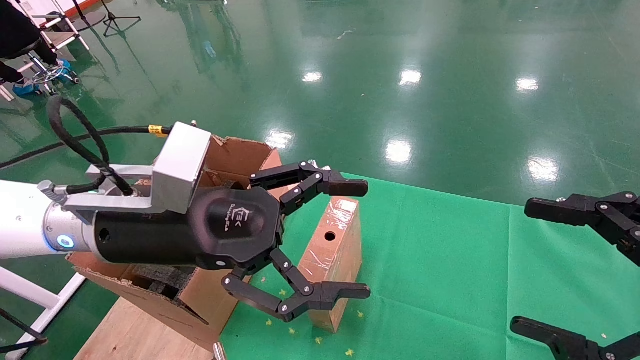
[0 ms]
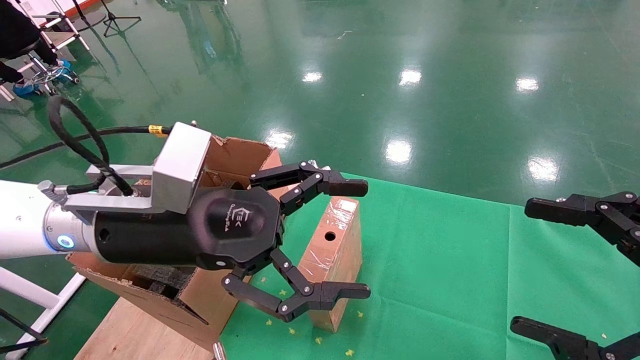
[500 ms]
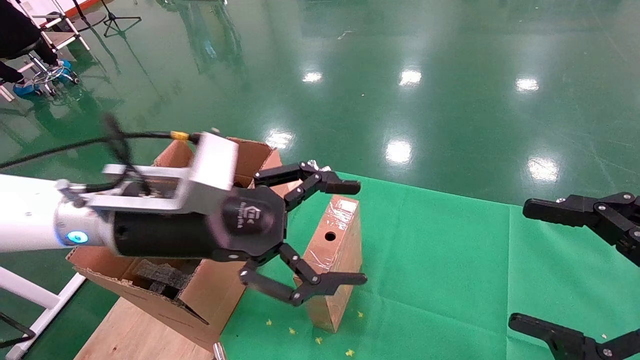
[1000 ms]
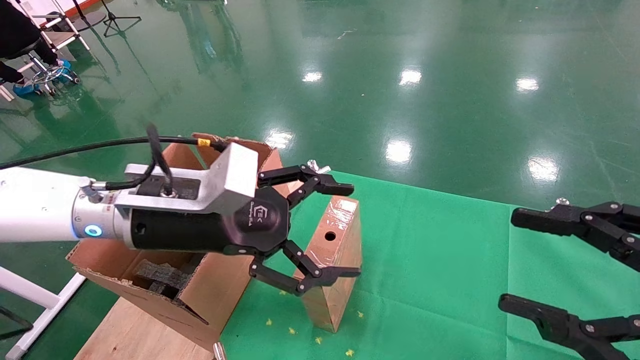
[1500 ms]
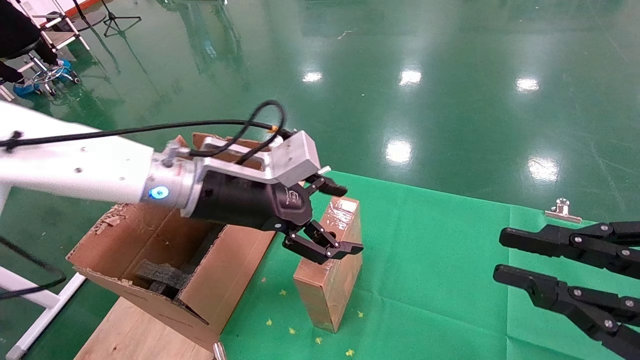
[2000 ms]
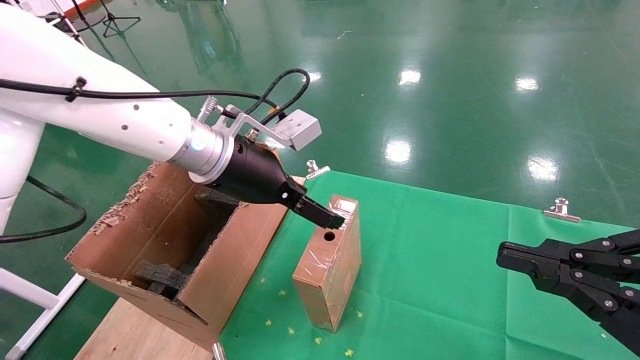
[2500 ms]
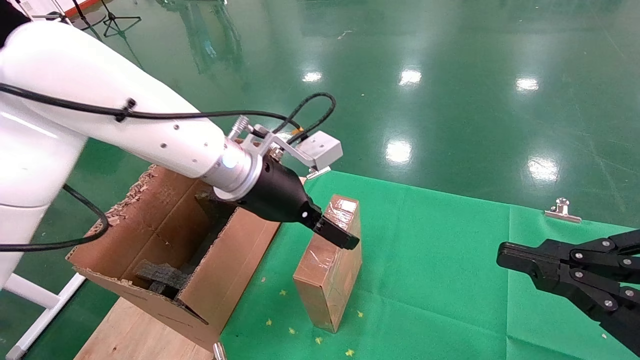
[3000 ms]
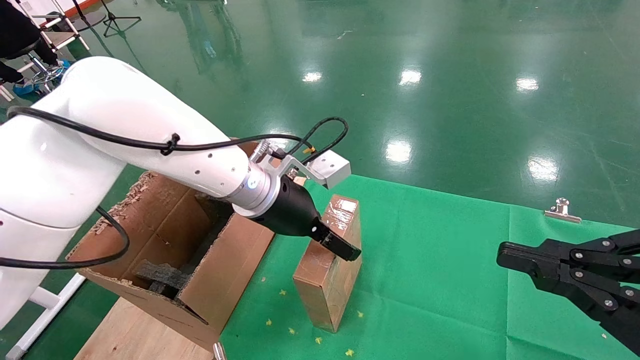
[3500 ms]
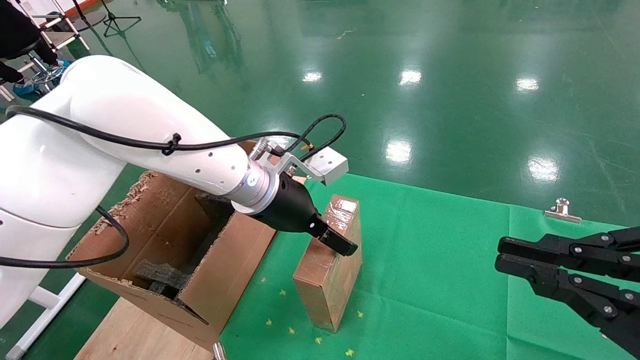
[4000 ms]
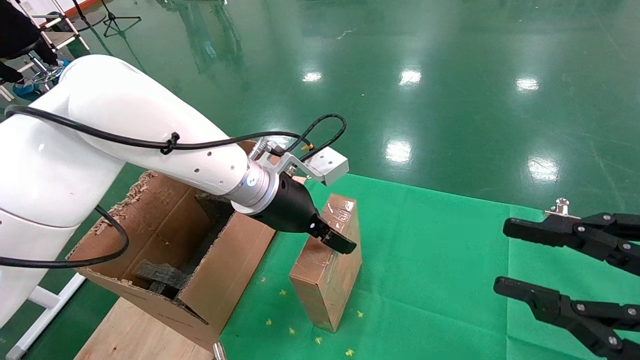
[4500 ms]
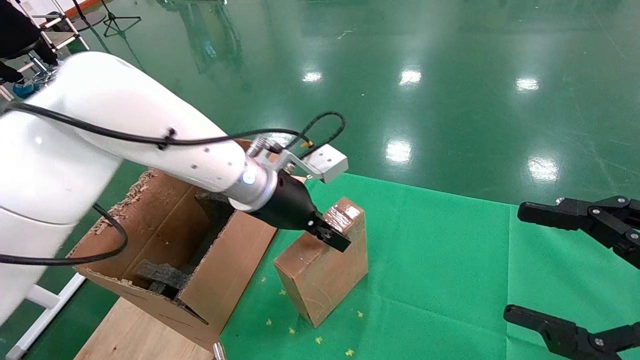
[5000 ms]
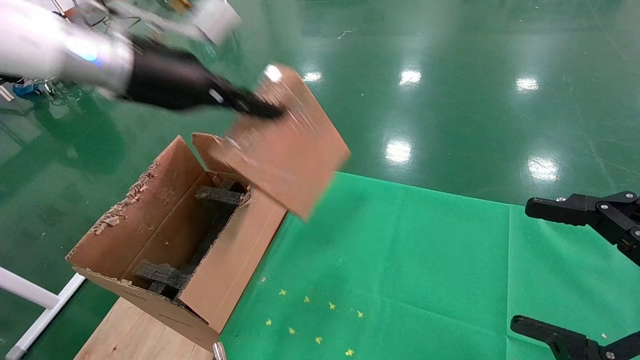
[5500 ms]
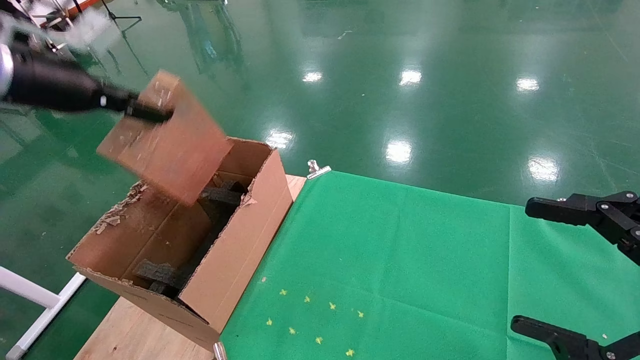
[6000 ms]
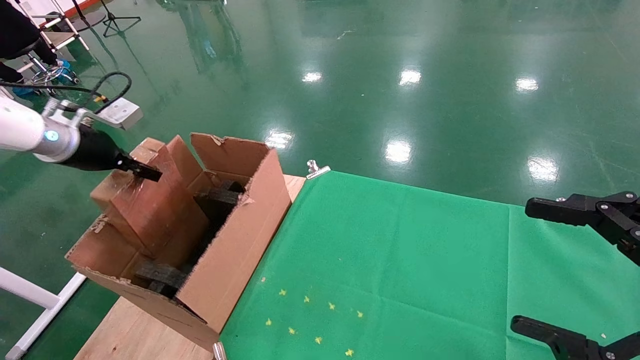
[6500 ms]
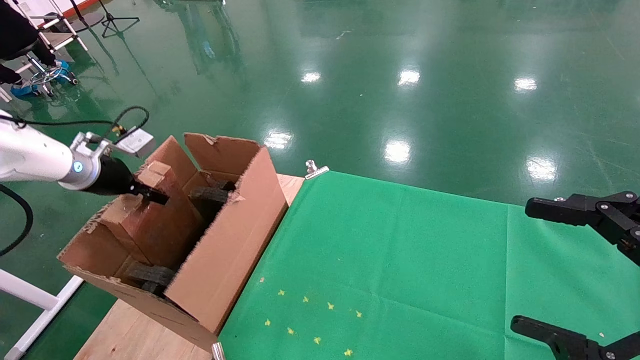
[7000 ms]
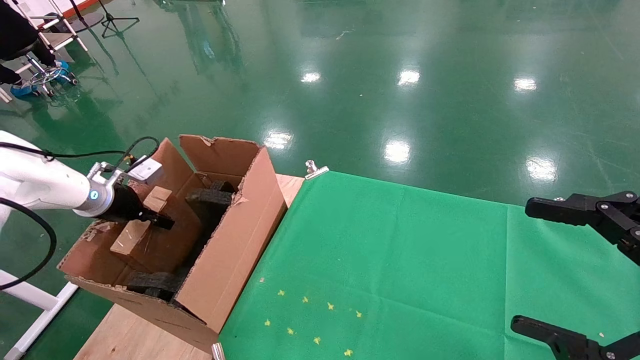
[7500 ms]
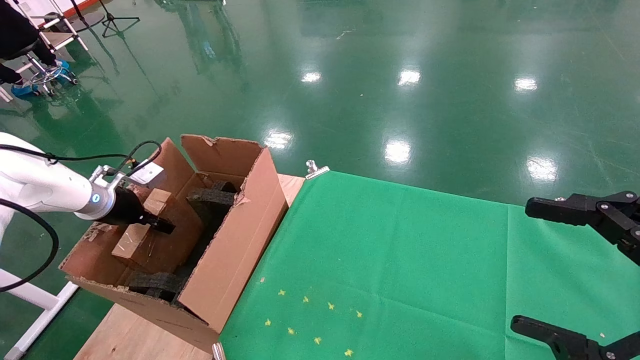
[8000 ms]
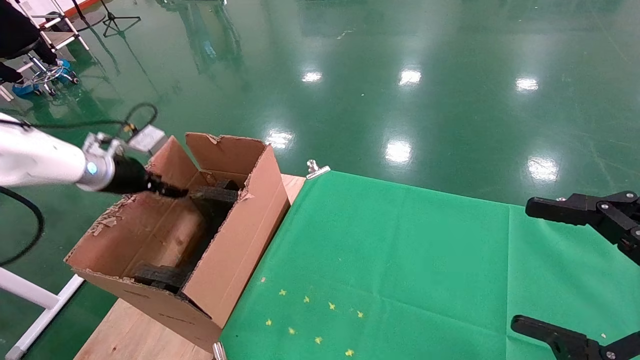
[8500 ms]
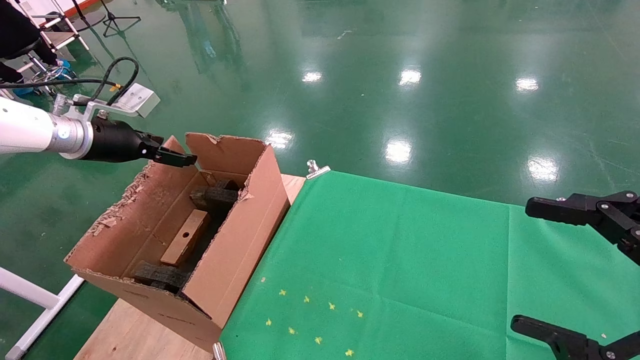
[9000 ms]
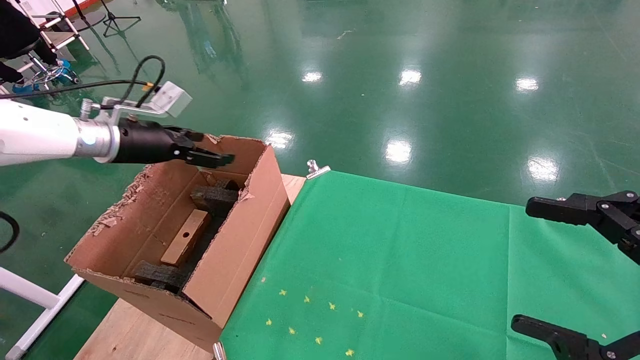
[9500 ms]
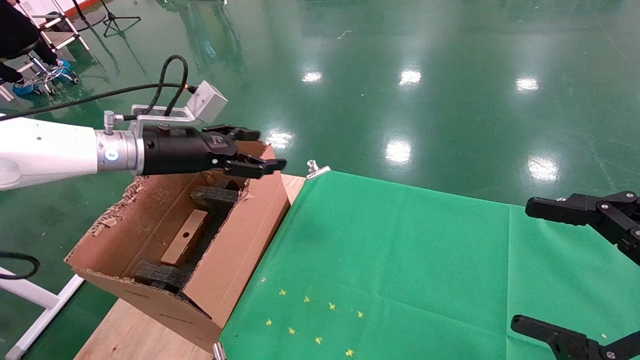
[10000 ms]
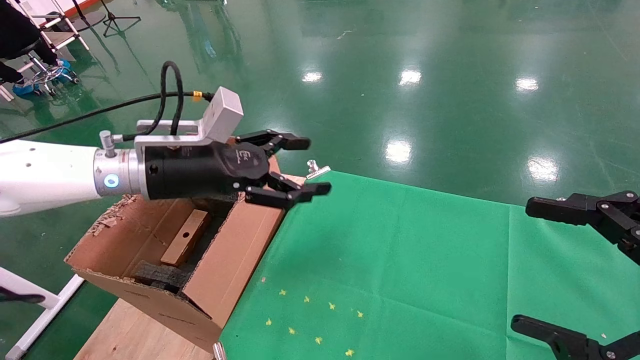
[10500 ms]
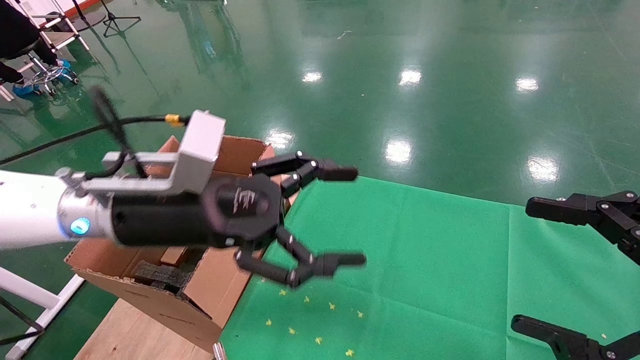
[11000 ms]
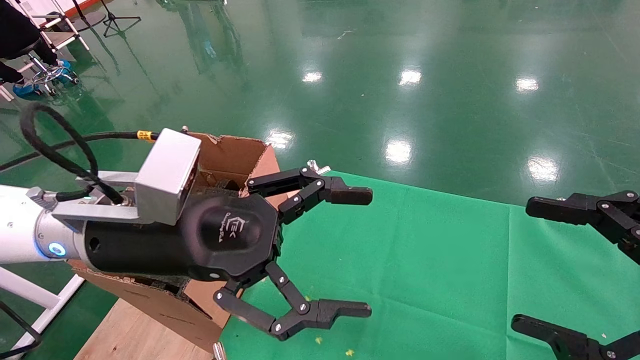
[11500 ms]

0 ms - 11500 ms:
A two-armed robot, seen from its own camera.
Task of the whole recording: using a robotic arm to pick up a cardboard box and palace it the carton.
Step, 1000 ms - 4500 ms: Pick up the mouse and the power cord paper box.
Step, 5000 ms - 8000 ms: Place the mouse and the power cord paper box into the container.
0 ms - 2000 ms: The right gripper closes. Meanwhile the left gripper moves forward, roughly 10 cm.
2000 ms - 4000 ms: The left gripper travels forward and to the right by roughly 5 cm.
4000 ms - 6000 ms: The left gripper moves to the left and upward, about 30 cm, and closes up, while the right gripper opens up.
6000 ms - 7500 ms: The left gripper travels downward by roughly 20 cm.
7500 ms - 9500 ms: The left gripper heads upward and to the right, covering about 15 cm, and opens.
9500 ms - 11500 ms: The left gripper is displaced to the right and backward by about 25 cm.

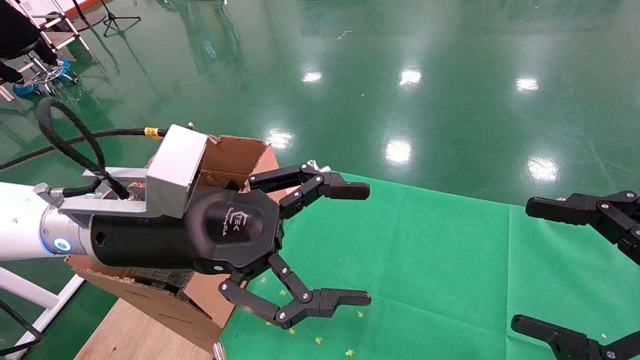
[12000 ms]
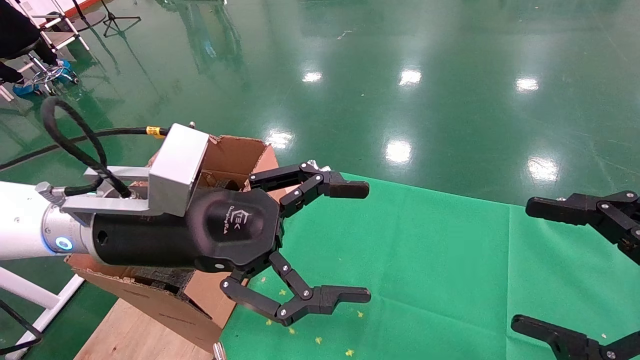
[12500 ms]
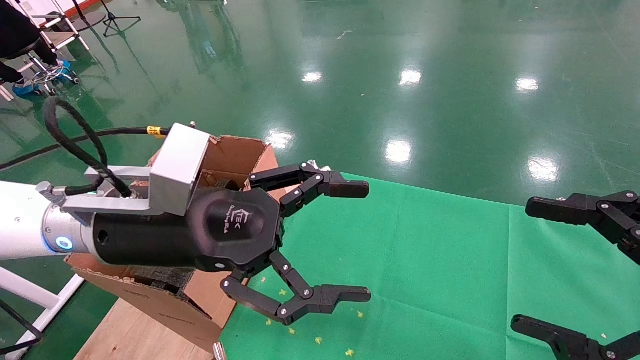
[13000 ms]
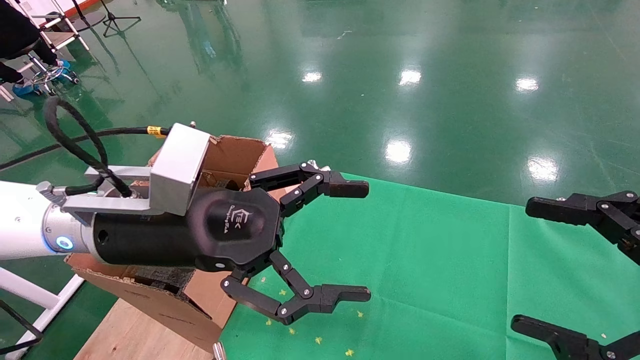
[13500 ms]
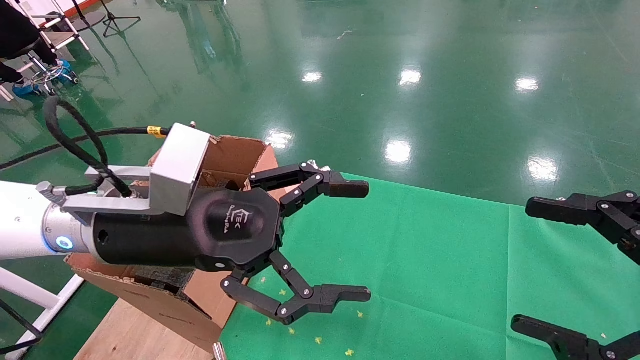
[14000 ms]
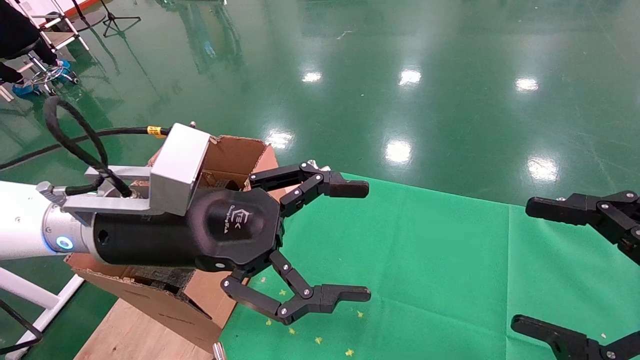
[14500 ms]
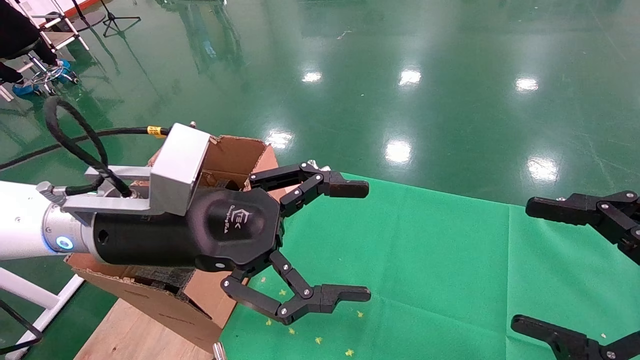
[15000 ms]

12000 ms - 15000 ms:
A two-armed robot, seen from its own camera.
Task of the whole recording: using a robotic arm to pick up a cardboard box and palace it the carton.
12000 ms - 15000 ms: Both grippers stay about where they are.

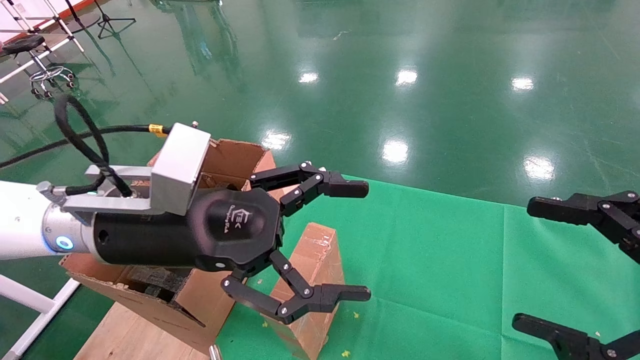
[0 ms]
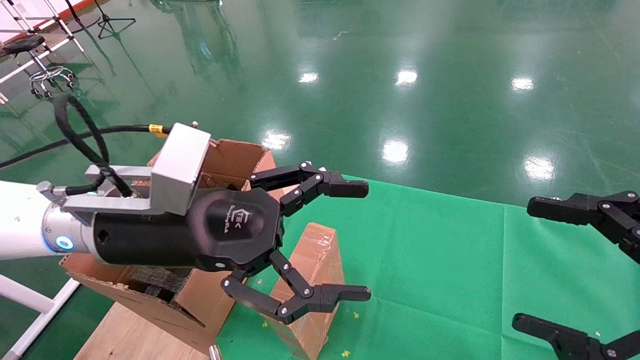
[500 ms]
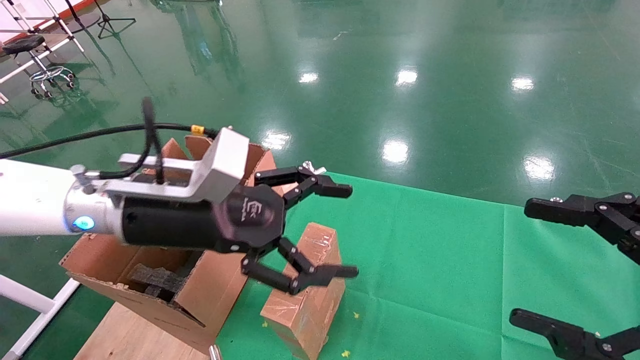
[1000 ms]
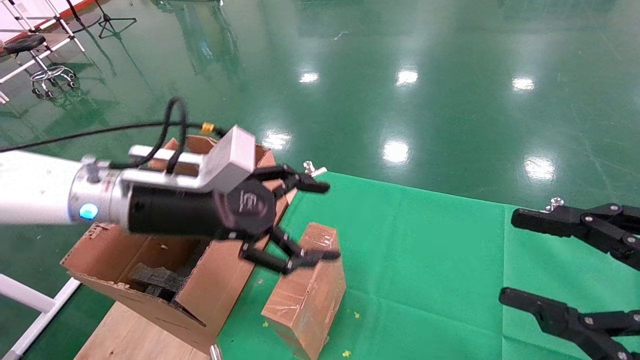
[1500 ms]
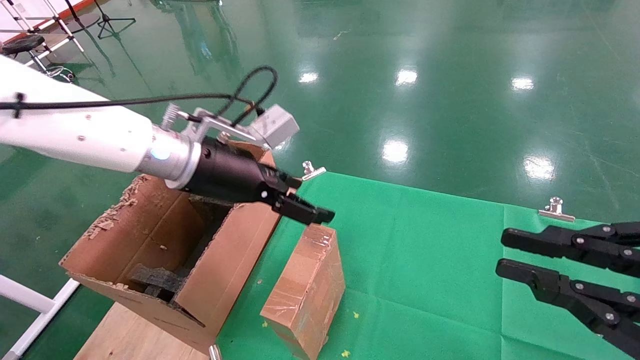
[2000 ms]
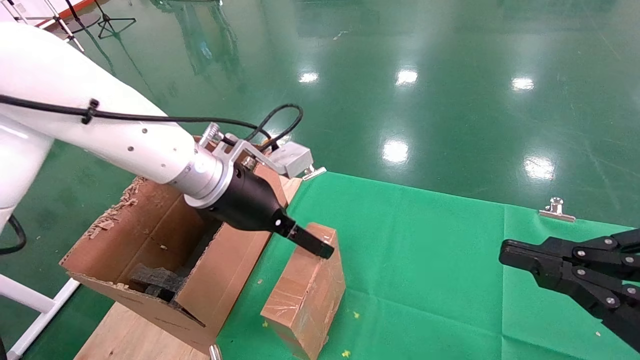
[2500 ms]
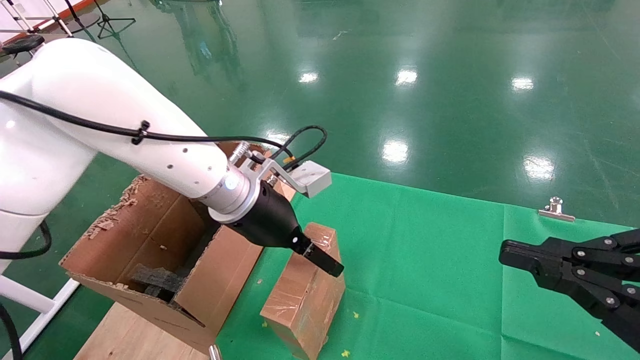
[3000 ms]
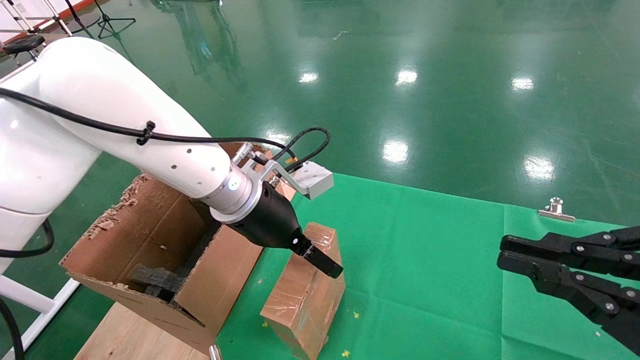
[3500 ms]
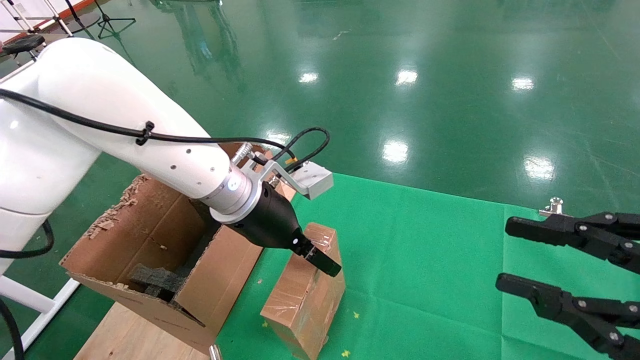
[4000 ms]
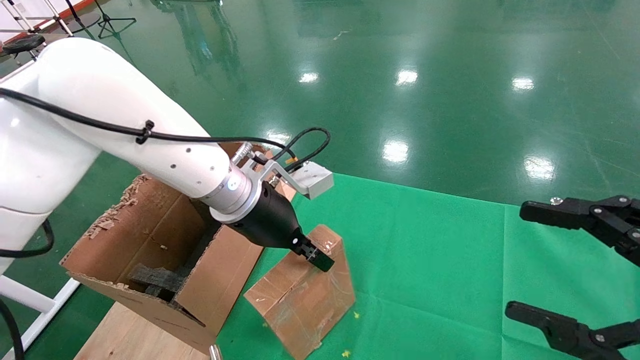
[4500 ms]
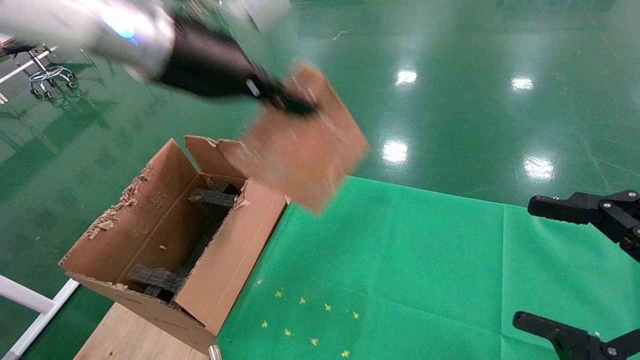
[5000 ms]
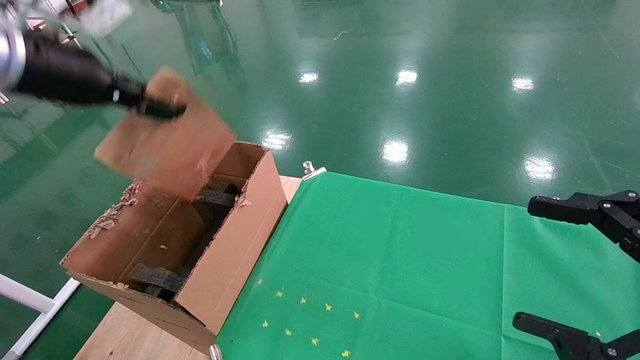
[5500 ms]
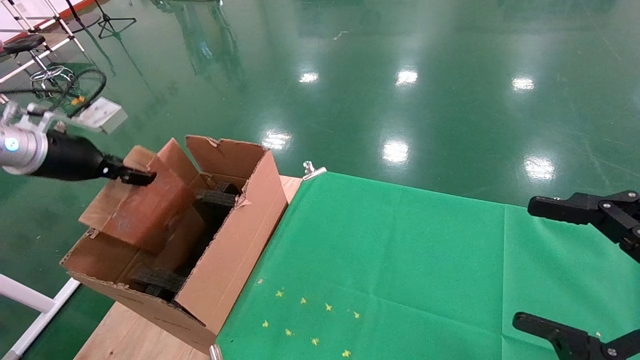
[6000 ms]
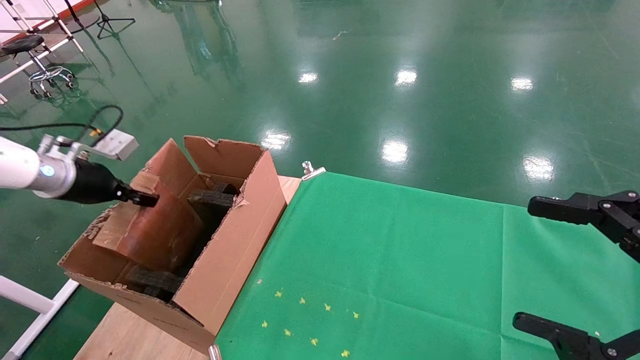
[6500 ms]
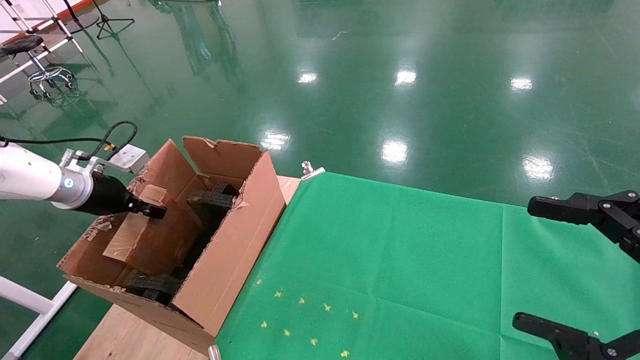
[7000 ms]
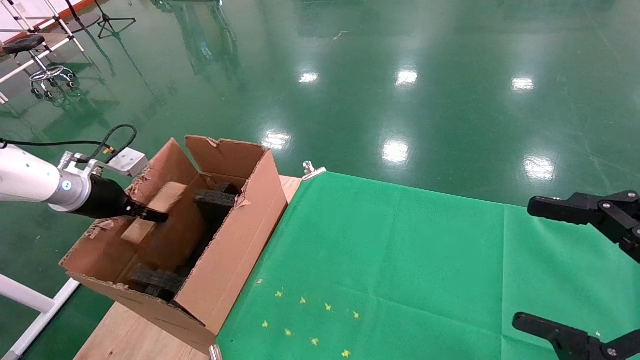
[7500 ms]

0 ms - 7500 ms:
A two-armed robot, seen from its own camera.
Task of the whole recording: using a robotic arm to pick up a cardboard box and palace it the carton.
Step, 1000 ms - 4500 ms: Pick up the mouse and the power cord paper box.
0 ms - 2000 ms: The left gripper moves forward, roughly 10 cm; the right gripper closes up.
2000 ms - 4000 ms: The left gripper goes approximately 5 cm to the right.
4000 ms - 5500 ms: The right gripper opens up. The left gripper moves to the left and upward, about 25 cm, and closes.
5500 ms - 7500 ms: The left gripper moves downward, to the left and forward, some 25 cm.
